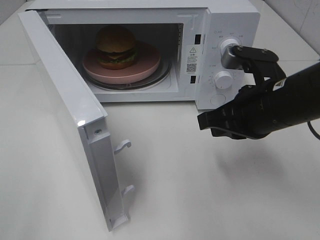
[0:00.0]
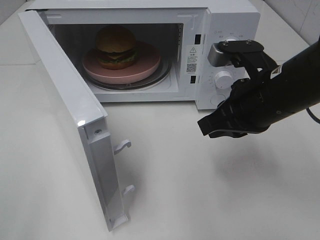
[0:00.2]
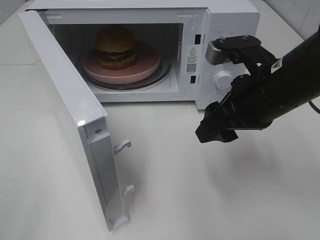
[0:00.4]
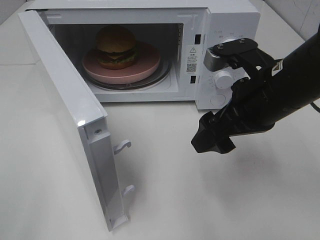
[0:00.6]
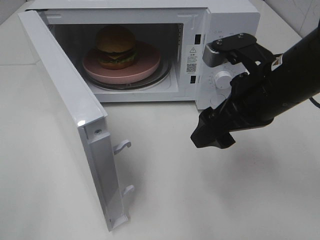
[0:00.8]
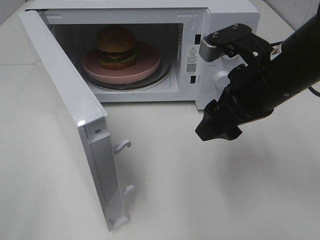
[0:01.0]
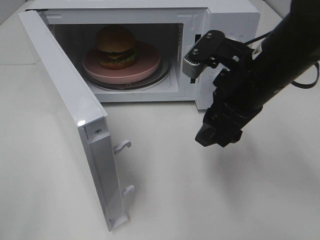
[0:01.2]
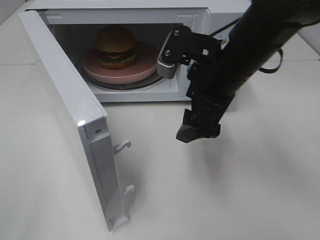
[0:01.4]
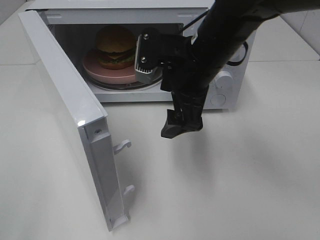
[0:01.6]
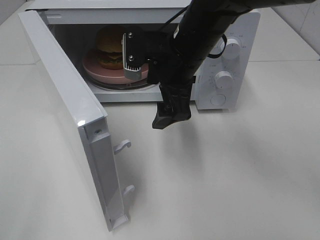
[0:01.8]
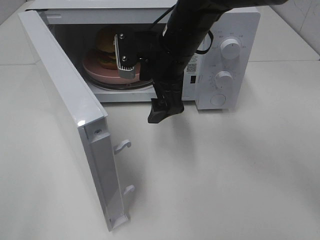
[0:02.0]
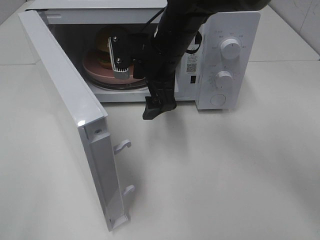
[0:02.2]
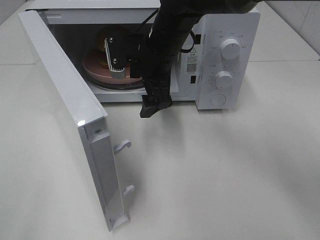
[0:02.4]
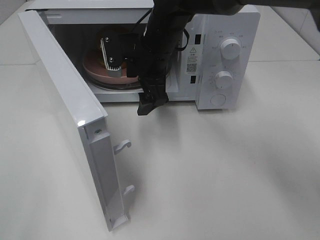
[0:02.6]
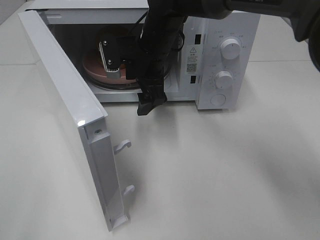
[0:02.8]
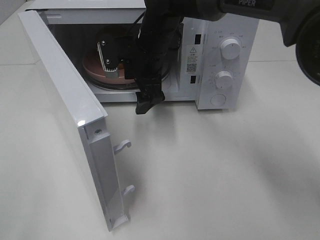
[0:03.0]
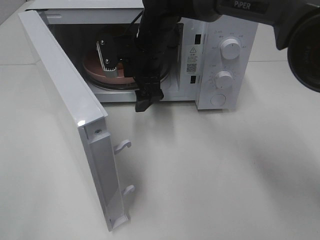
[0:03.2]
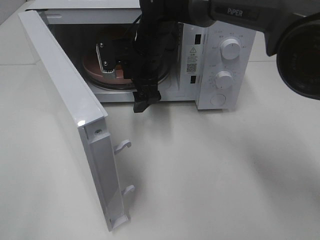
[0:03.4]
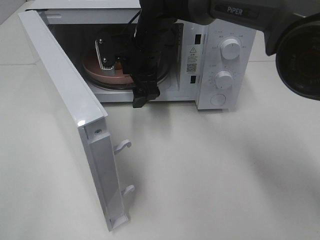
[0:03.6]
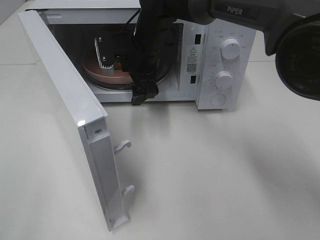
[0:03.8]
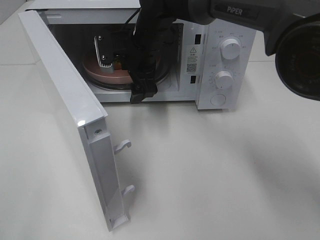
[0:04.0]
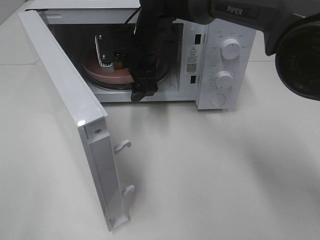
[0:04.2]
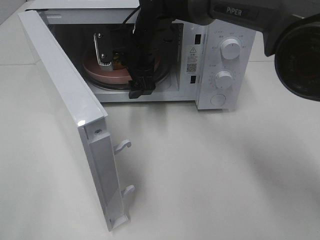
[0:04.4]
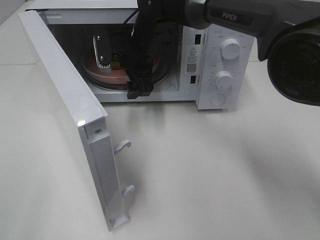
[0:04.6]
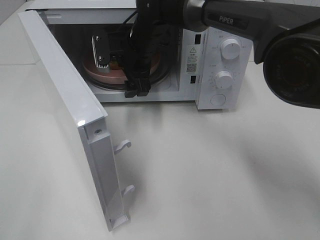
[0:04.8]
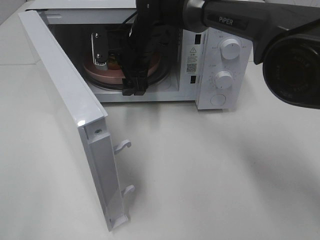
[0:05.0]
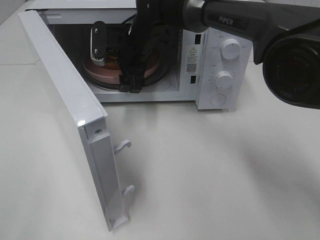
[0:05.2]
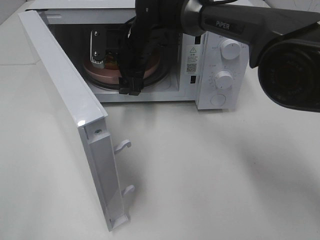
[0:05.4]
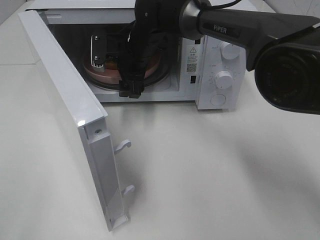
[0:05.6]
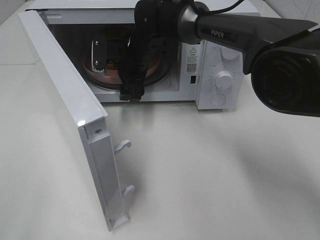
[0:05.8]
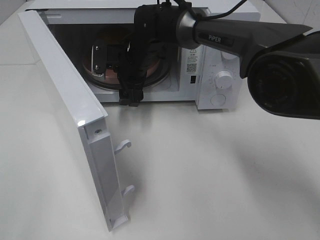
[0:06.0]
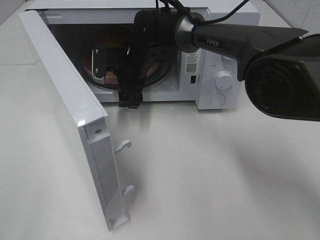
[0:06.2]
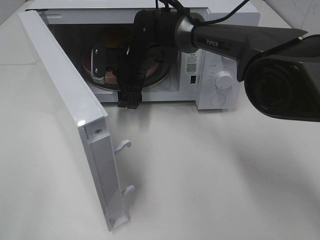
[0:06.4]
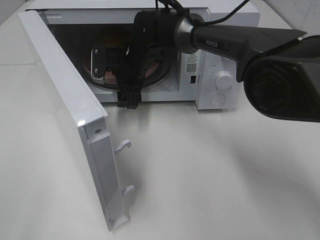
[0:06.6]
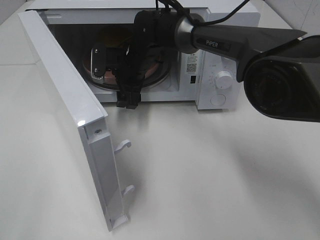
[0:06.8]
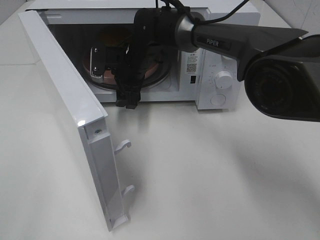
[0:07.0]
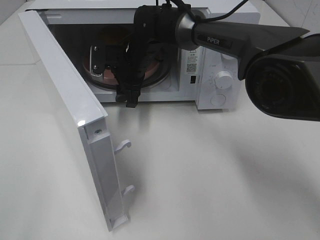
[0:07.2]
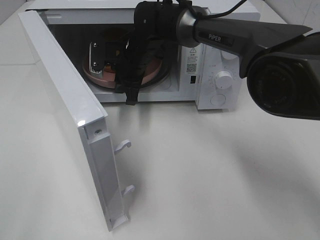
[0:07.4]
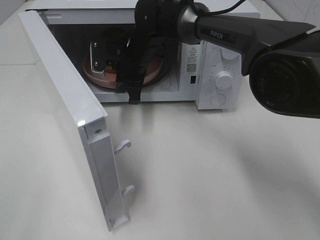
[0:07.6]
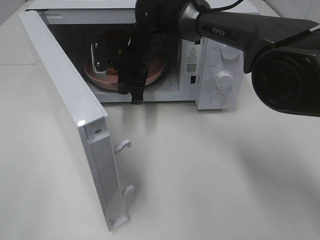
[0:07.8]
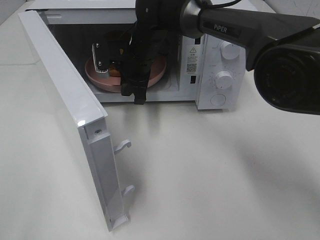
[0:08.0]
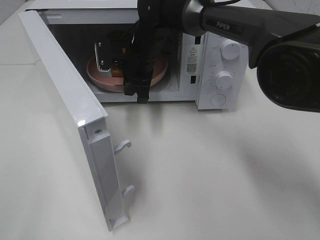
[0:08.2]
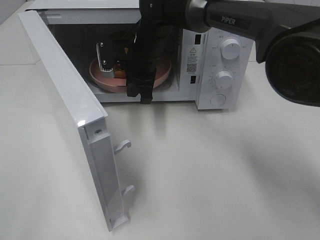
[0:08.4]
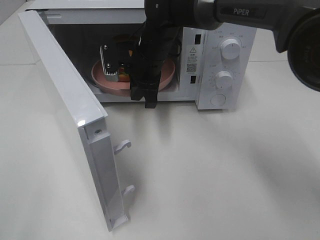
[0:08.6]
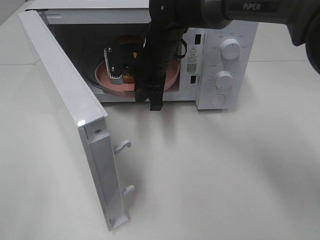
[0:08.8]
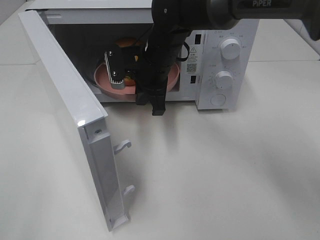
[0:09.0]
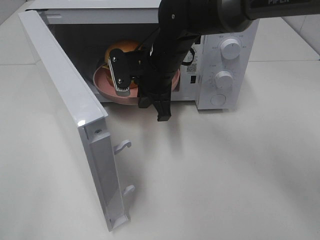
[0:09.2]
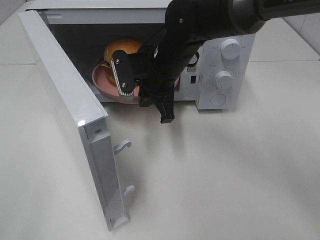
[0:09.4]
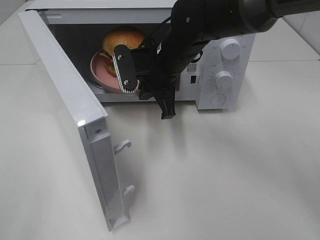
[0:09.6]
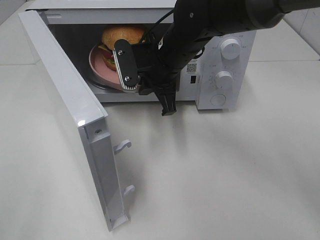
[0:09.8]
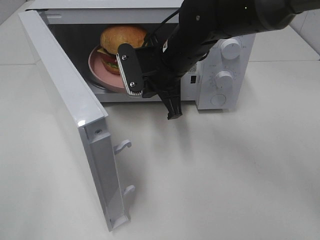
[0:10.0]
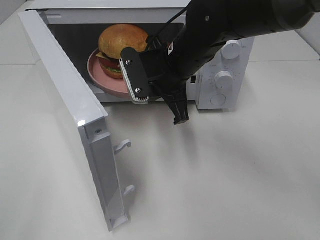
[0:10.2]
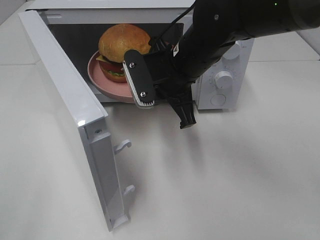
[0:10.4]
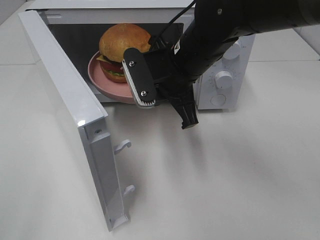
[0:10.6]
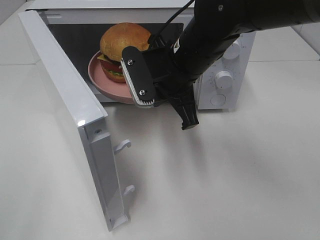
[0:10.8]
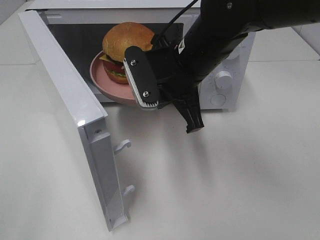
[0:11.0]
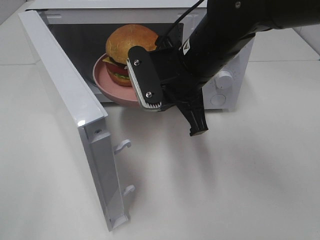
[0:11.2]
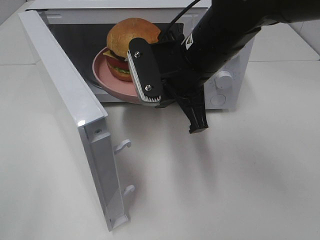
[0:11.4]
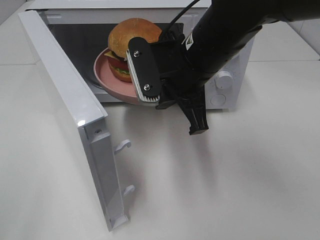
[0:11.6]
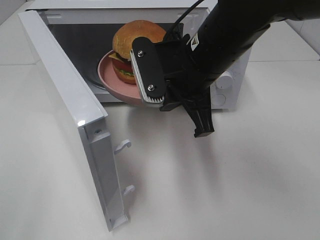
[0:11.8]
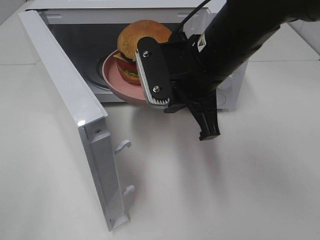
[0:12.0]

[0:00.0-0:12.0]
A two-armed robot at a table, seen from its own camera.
Task of the whole recording: Heat the burger.
Step, 0:00.0 to 0:07.4: Right hand: grab the plate with the hamburger.
0:00.0 to 0:01.6: The right gripper travels to the left and forward by approximately 10 cm, and opens up.
0:01.6 to 0:03.0: The right gripper travels forward and to the left by roughly 15 cm.
0:03.0 to 0:04.4: The grippers stay close to where they were, moving slightly.
0:04.4 to 0:06.0: There are only small adjustments of the grippers.
0:06.0 to 0:07.6: The right gripper closes its fingers.
0:07.6 to 0:09.0: The right gripper moves backward, roughly 5 cm.
0:09.0 to 0:10.4: The right gripper is displaced backward by some 5 cm.
0:10.4 to 0:12.0: The right gripper is displaced backward by about 5 cm.

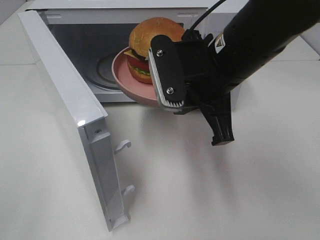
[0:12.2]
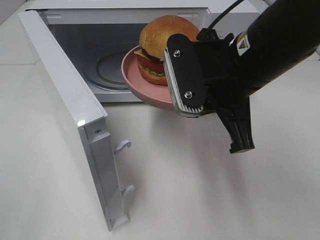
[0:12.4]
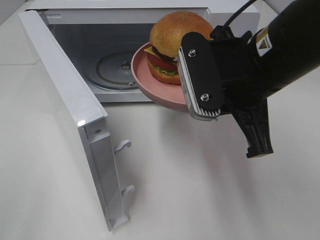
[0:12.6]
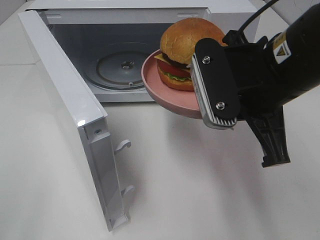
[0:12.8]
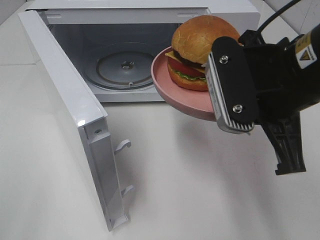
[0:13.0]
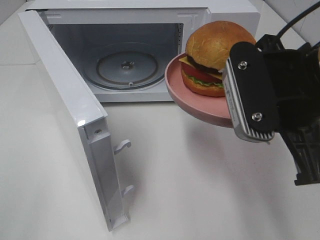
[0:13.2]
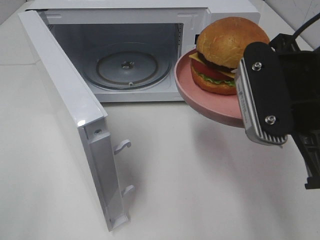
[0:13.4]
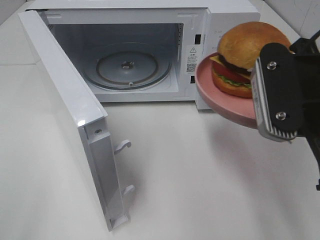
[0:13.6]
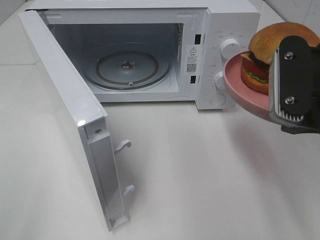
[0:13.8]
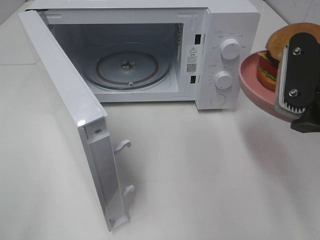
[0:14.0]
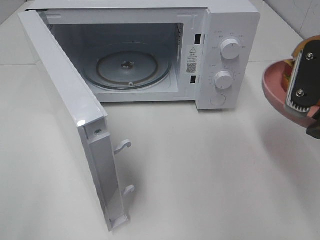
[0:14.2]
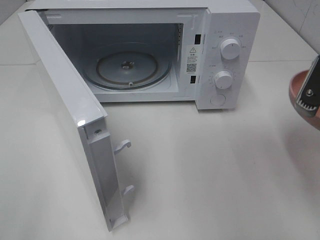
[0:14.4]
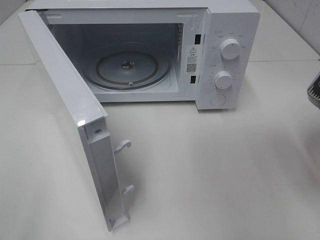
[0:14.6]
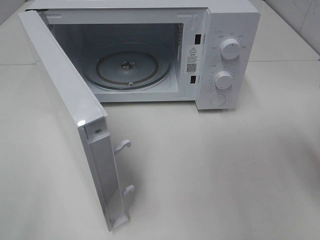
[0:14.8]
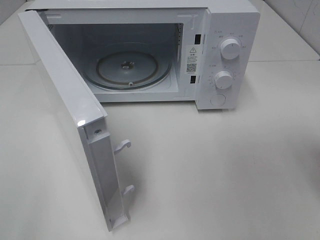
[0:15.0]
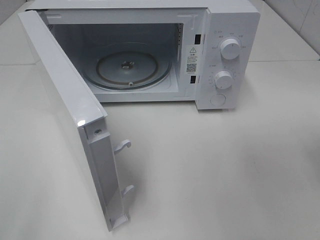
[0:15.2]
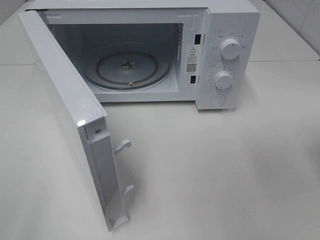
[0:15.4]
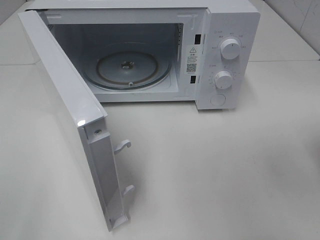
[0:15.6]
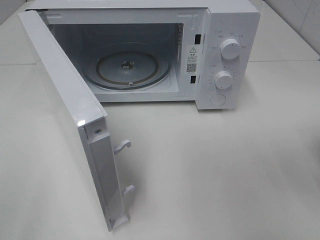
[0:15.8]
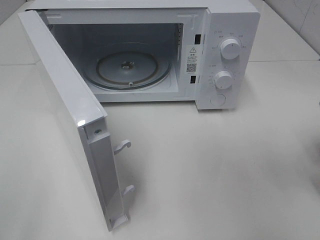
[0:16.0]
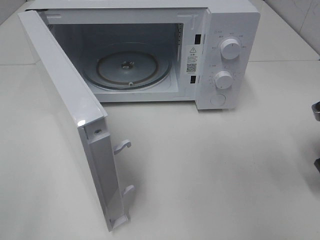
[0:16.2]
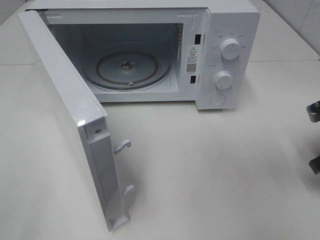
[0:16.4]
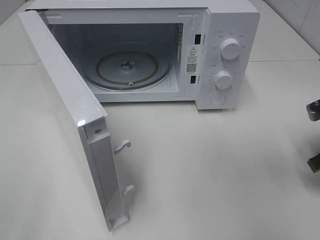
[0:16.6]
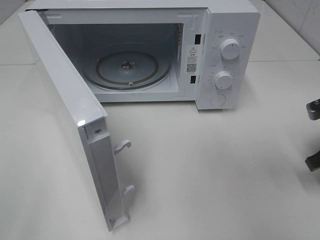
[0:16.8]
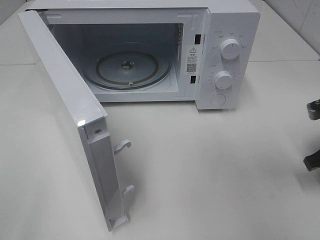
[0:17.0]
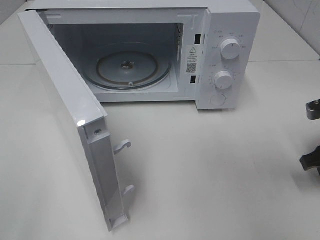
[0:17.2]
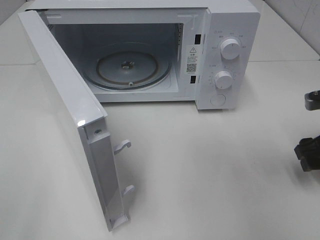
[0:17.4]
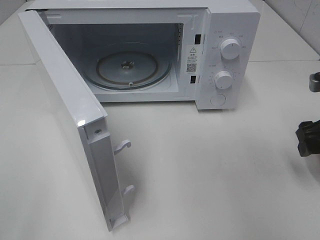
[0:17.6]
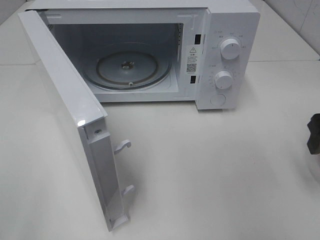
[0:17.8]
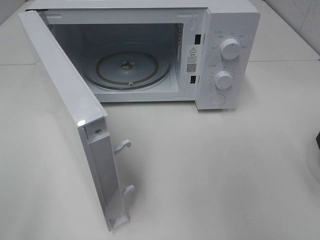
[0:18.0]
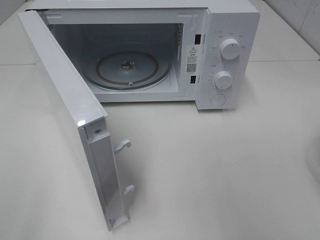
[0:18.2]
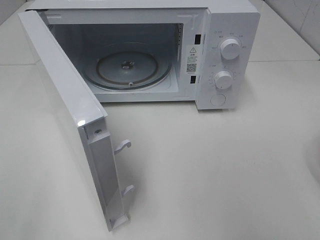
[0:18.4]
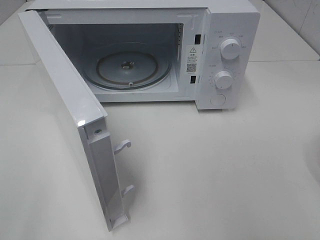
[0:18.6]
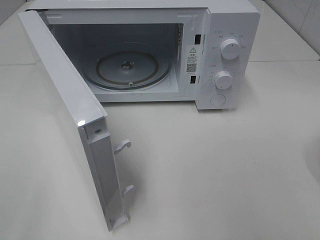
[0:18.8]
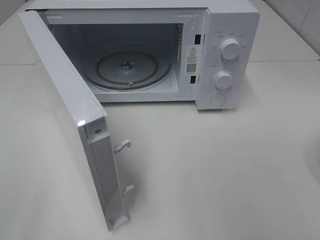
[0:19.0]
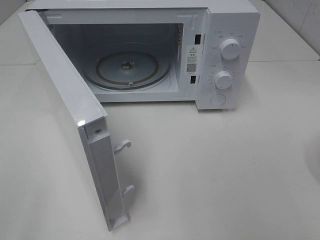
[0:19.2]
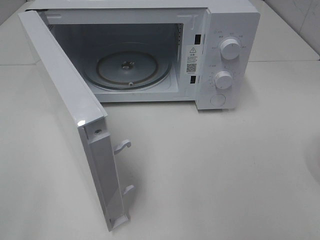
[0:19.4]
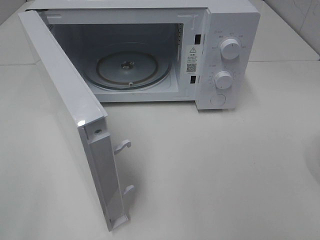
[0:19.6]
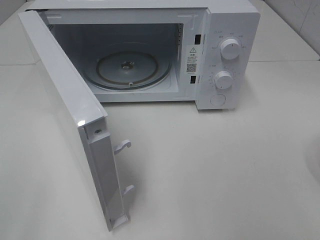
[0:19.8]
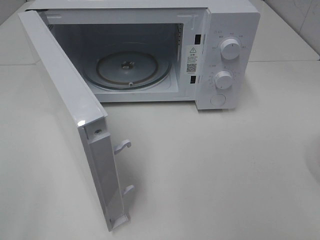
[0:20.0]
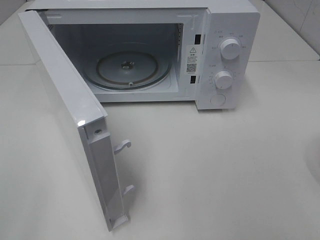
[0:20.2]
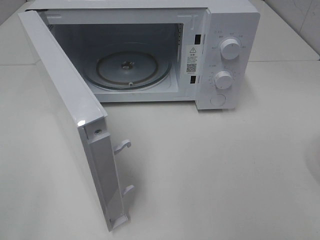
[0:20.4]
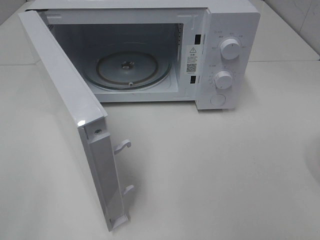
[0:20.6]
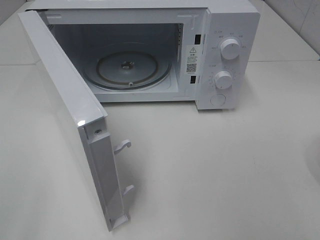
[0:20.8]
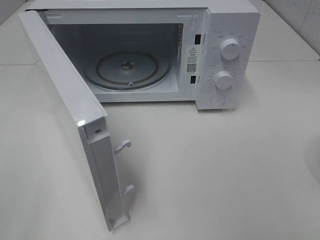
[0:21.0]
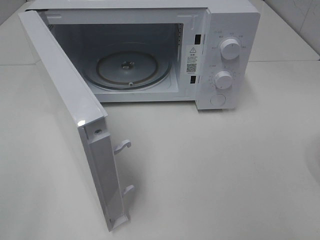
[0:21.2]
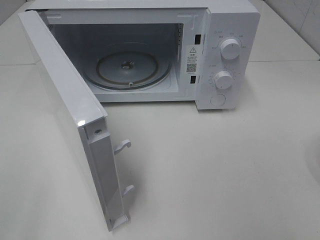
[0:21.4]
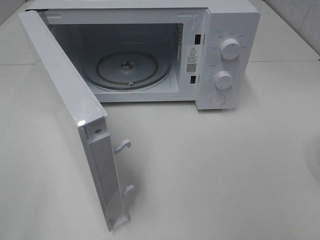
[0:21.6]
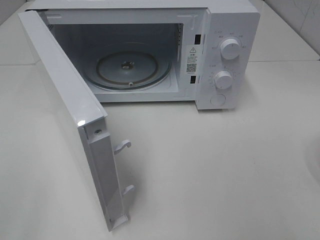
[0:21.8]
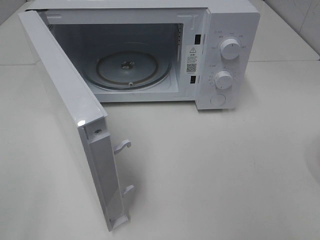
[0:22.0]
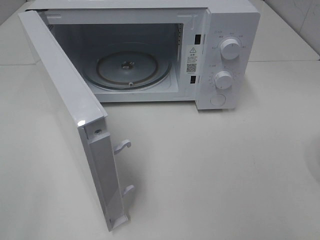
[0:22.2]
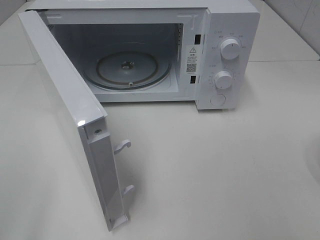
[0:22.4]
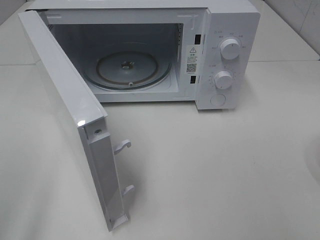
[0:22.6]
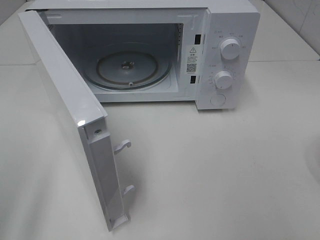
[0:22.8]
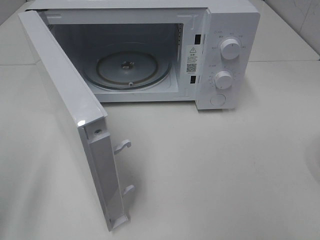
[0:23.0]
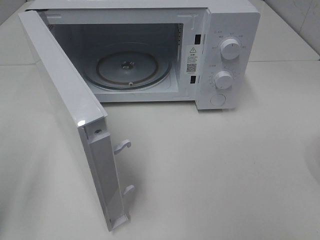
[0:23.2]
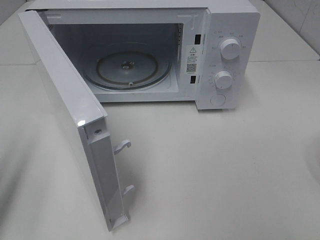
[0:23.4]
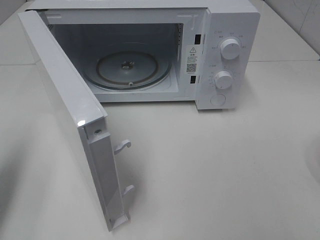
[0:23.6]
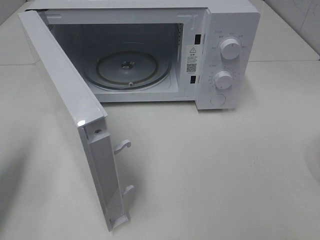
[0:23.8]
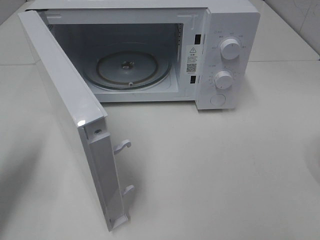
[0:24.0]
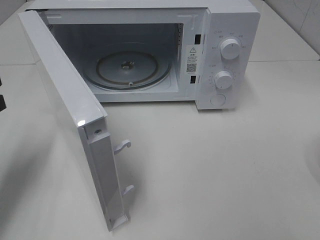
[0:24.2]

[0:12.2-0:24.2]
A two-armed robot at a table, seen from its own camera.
Task of the whole recording: Heat the burger.
Step, 0:12.2 to 0:16.8: Right hand: place the plate on the table.
0:12.2 to 0:13.8: The right gripper travels to the right and backward by some 15 cm.
0:13.8 to 0:15.2: The right gripper moves to the right, approximately 10 cm.
0:15.2 to 0:16.6: The right gripper moves downward and forward, some 10 cm.
0:16.6 to 0:18.2: The right gripper heads upward and backward, covering some 15 cm, and opens its fingers.
0:22.6 to 0:24.2: The left gripper travels forward and downward by about 20 cm, and closes.
